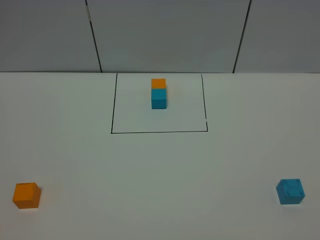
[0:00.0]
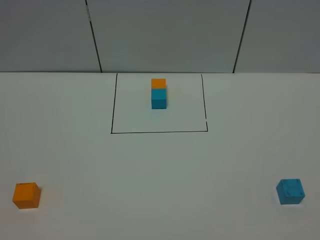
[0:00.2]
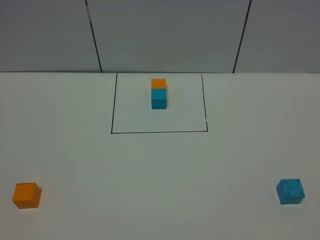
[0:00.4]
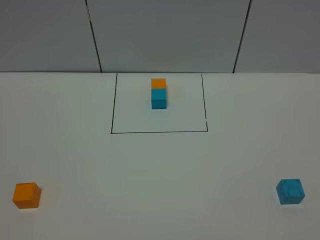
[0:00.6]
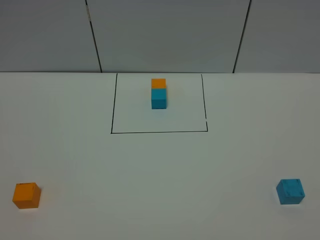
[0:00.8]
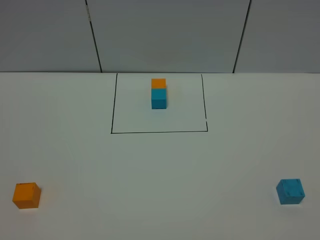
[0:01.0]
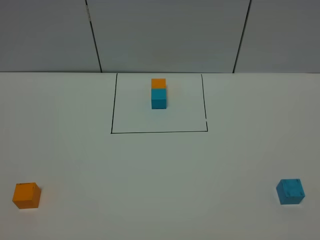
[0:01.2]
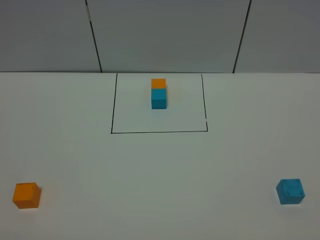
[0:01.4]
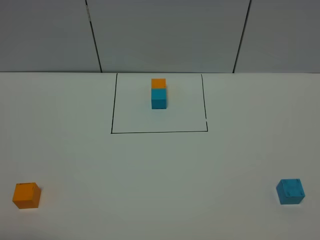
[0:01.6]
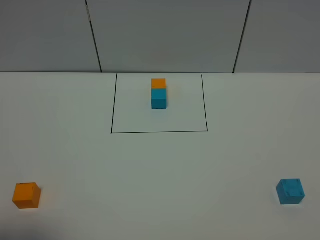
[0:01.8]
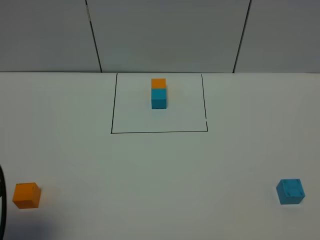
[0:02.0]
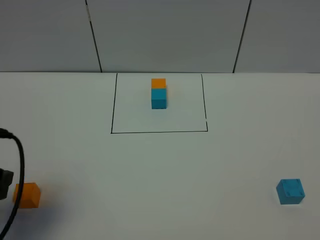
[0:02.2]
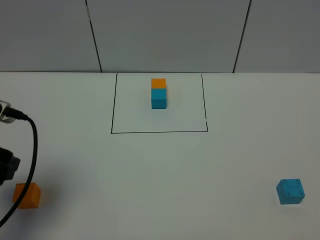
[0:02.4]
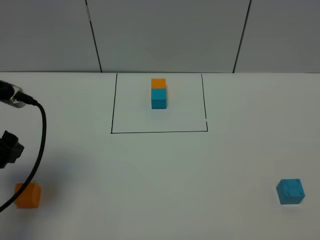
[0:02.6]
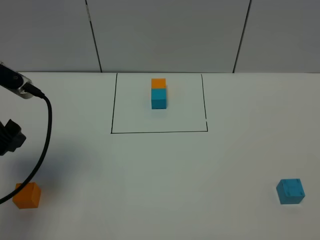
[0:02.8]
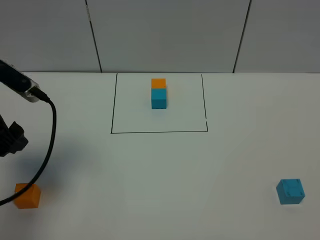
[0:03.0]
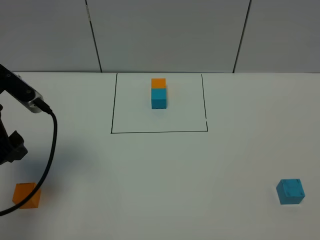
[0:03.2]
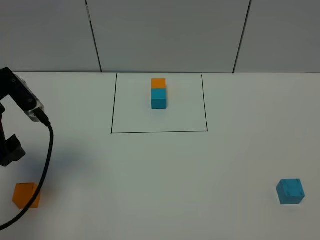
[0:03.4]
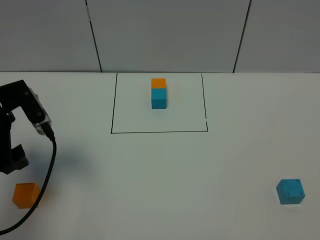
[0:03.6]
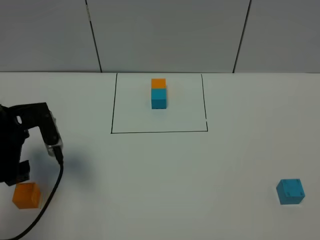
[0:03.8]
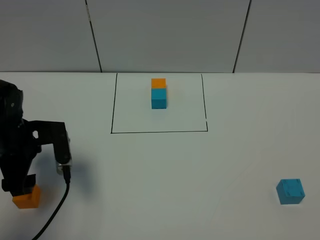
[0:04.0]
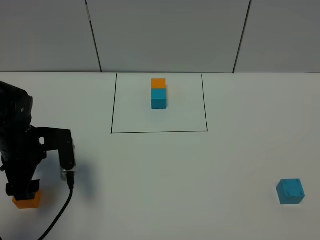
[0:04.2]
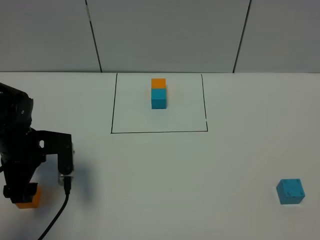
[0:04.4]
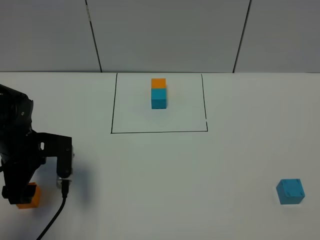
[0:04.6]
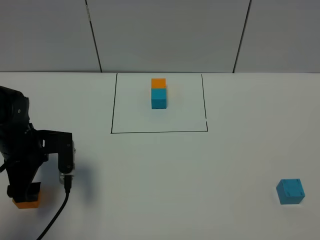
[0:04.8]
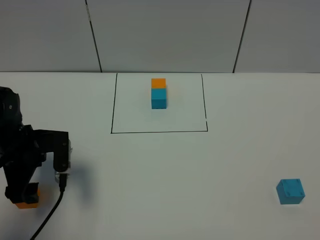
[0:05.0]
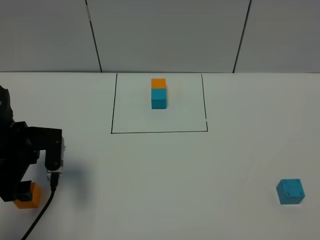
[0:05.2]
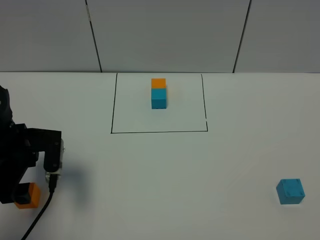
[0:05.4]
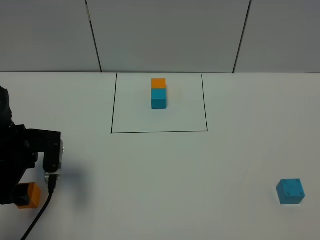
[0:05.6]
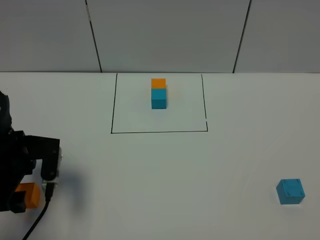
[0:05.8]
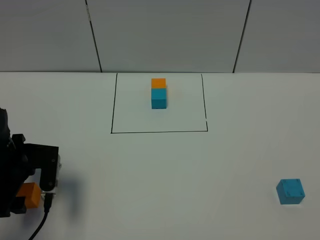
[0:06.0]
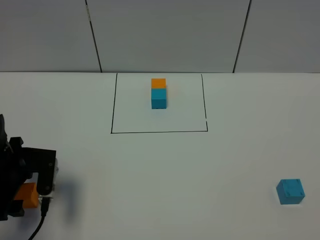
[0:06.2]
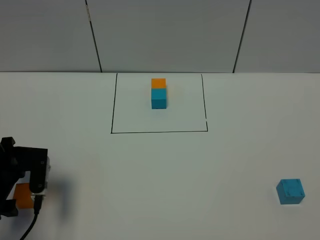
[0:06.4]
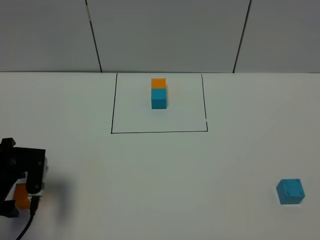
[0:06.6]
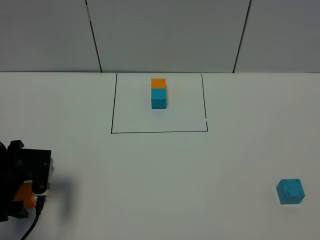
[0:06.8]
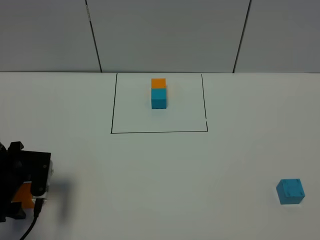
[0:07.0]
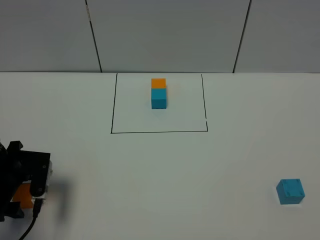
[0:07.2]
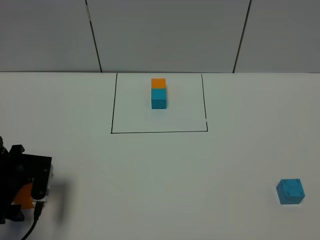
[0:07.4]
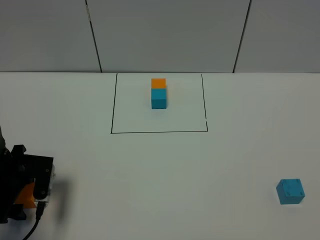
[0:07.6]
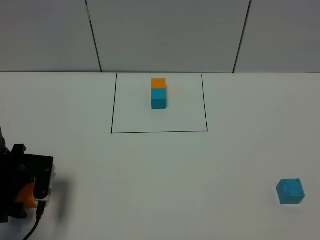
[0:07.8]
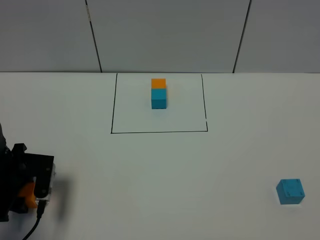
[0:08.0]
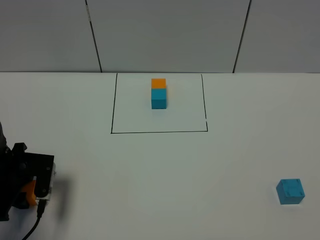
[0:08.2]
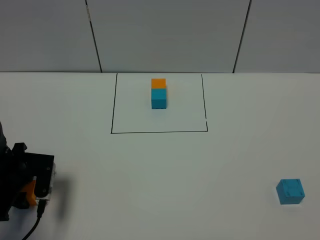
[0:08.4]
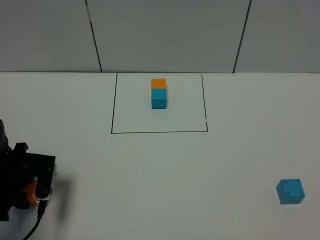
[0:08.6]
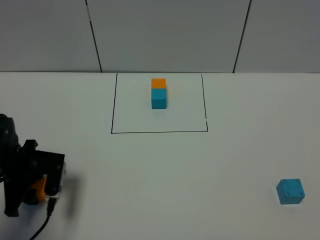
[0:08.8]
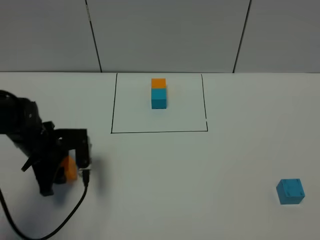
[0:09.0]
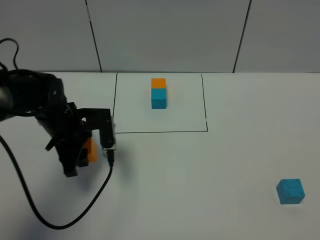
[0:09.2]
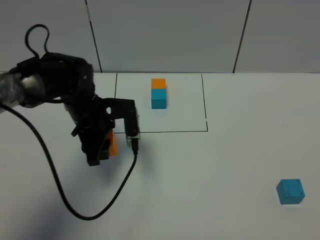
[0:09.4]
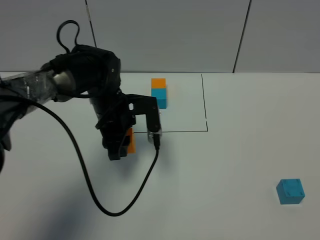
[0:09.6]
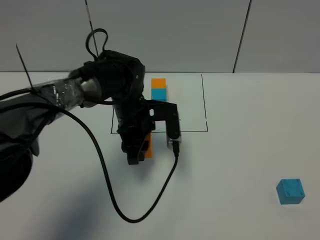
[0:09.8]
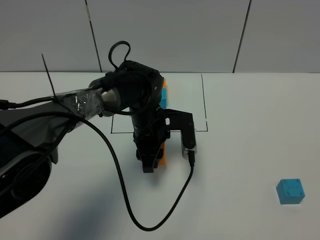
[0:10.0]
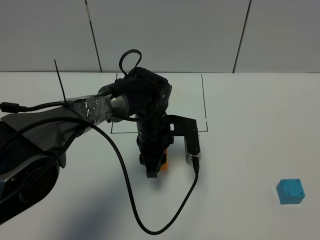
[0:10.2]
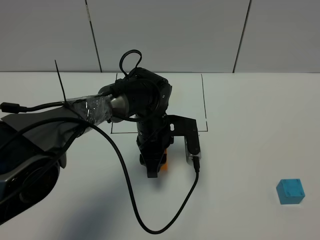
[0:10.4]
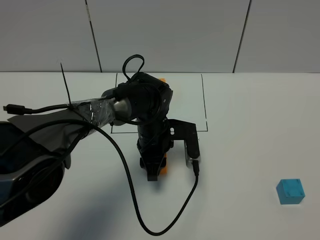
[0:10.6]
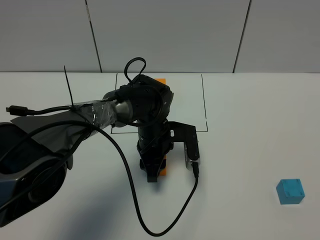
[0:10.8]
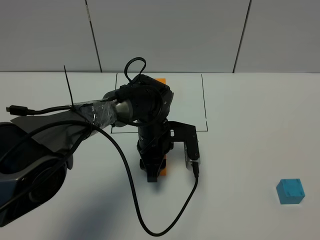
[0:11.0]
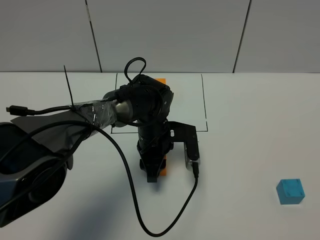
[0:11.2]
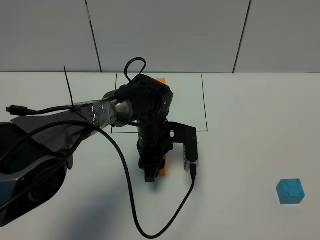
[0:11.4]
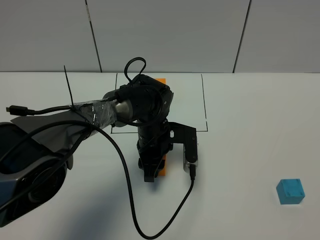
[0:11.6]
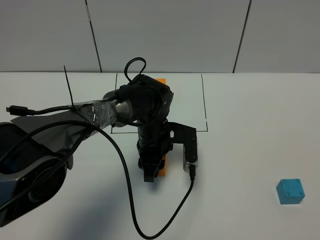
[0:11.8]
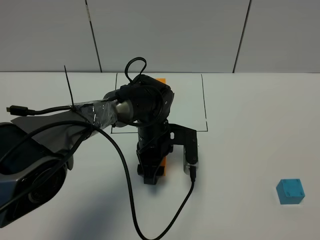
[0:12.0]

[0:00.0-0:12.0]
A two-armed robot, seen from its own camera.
Task of the whole recording: According to the building block template in front, assemble the scattered blocks together.
0:01.6 to 0:03.0: The left gripper is displaced forward by some 25 cm.
0:03.0 to 0:04.4: The left gripper goes about 10 cm downward.
0:04.4 to 0:06.0: The grippers stay close to where they were, moving slightly.
0:06.0 to 0:07.6: The left gripper moves some 5 cm.
0:07.6 to 0:09.0: The left gripper moves to the right, approximately 5 cm, and closes up.
0:09.0 to 0:10.4: The left gripper moves to the right, approximately 20 cm.
0:10.4 to 0:12.0: The left gripper opens.

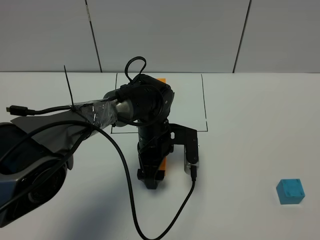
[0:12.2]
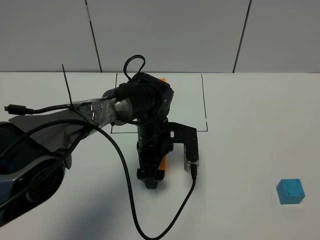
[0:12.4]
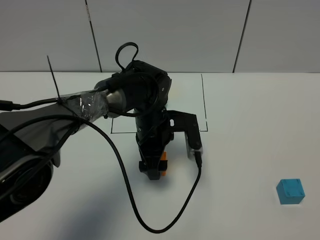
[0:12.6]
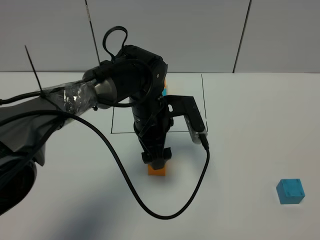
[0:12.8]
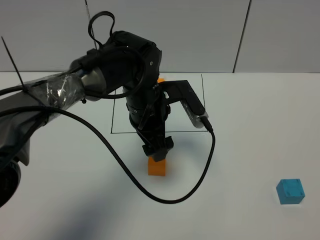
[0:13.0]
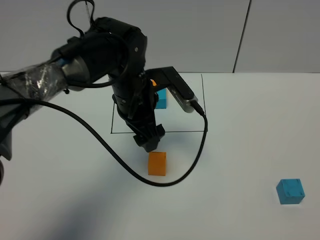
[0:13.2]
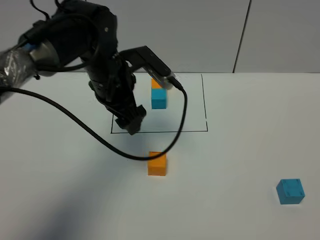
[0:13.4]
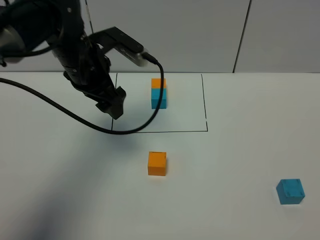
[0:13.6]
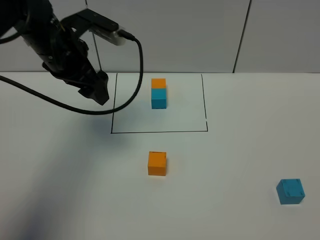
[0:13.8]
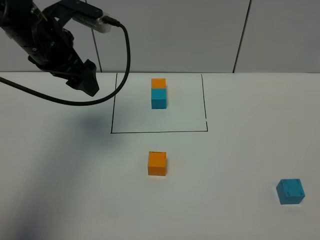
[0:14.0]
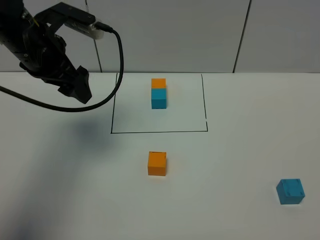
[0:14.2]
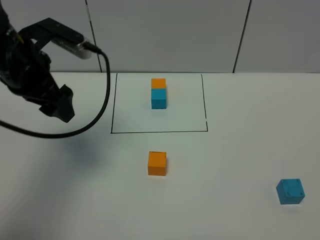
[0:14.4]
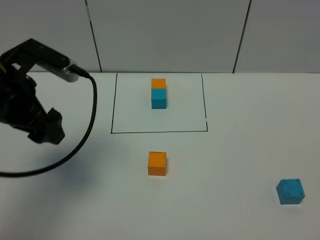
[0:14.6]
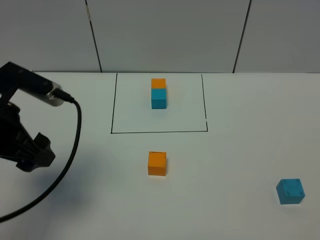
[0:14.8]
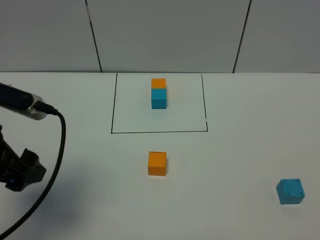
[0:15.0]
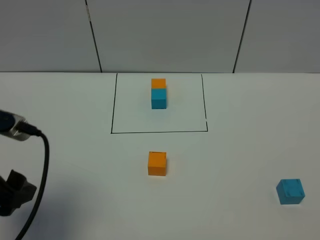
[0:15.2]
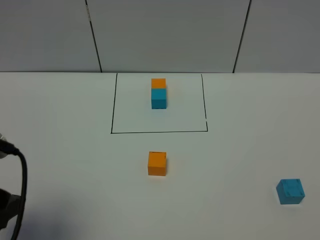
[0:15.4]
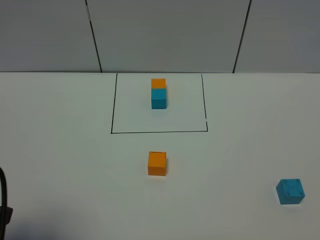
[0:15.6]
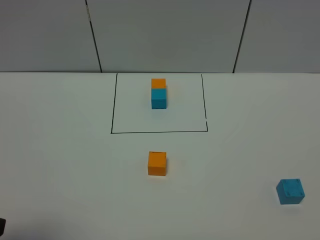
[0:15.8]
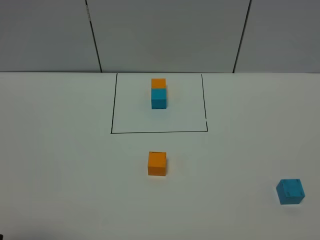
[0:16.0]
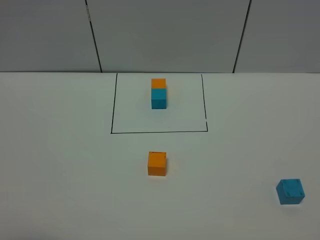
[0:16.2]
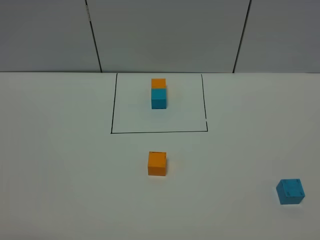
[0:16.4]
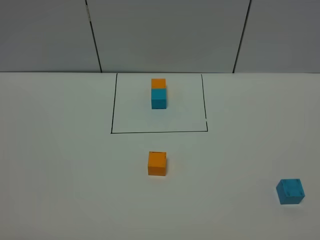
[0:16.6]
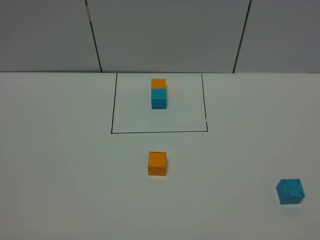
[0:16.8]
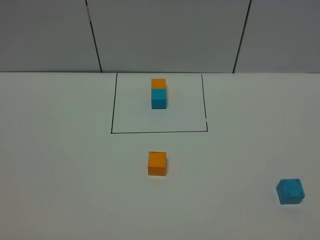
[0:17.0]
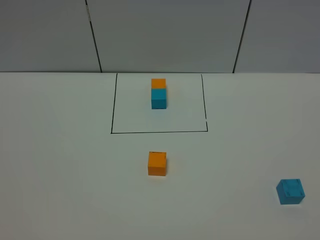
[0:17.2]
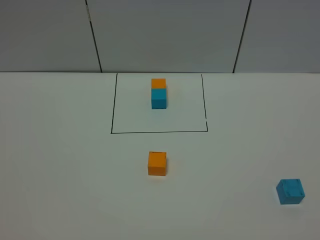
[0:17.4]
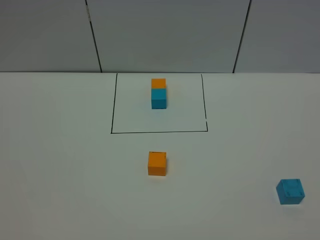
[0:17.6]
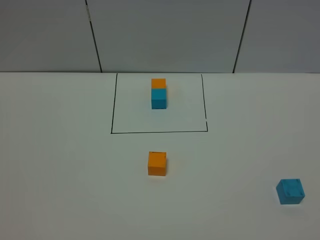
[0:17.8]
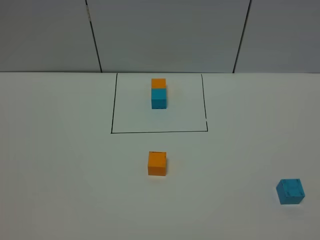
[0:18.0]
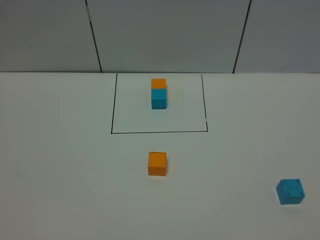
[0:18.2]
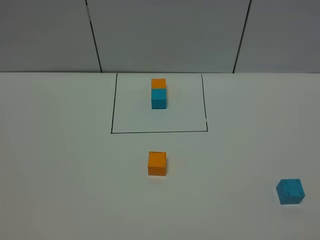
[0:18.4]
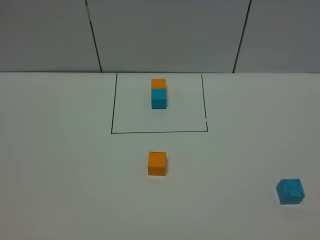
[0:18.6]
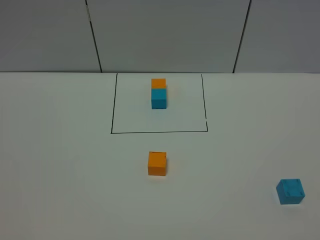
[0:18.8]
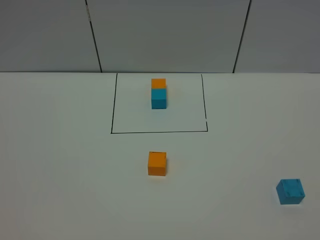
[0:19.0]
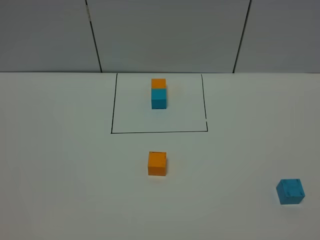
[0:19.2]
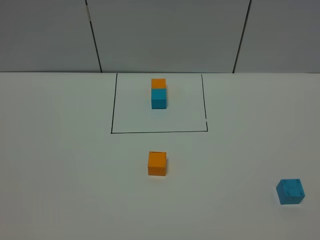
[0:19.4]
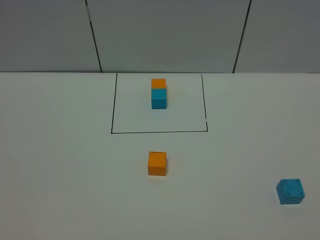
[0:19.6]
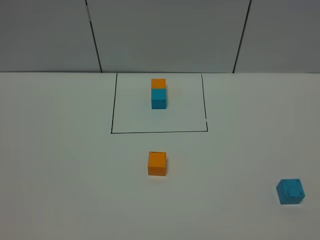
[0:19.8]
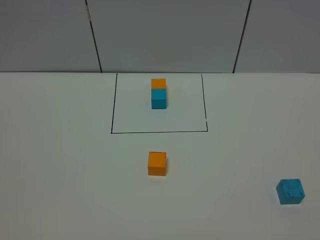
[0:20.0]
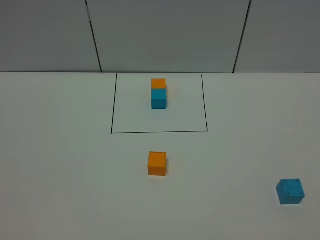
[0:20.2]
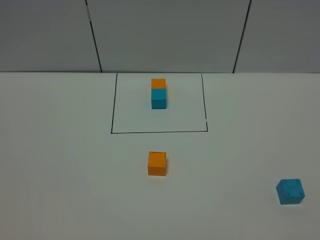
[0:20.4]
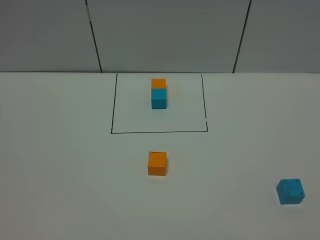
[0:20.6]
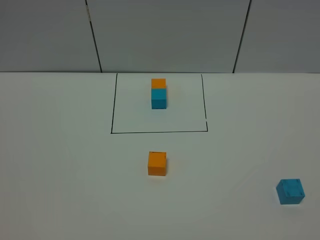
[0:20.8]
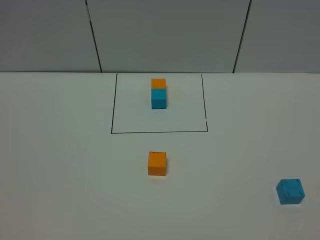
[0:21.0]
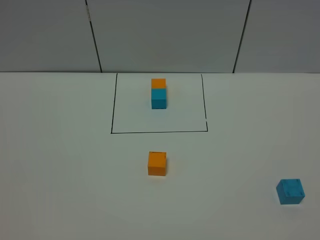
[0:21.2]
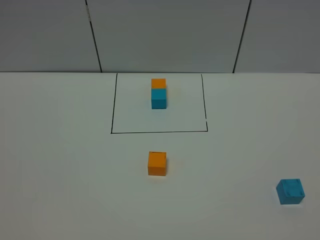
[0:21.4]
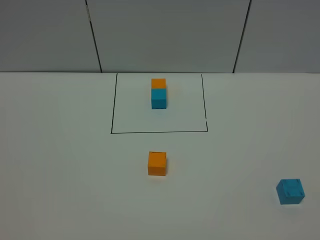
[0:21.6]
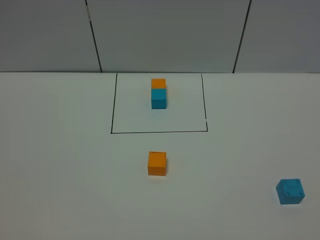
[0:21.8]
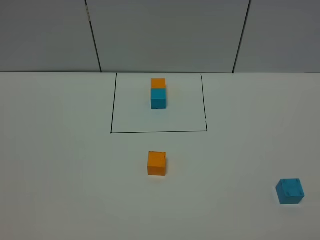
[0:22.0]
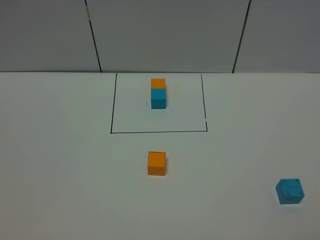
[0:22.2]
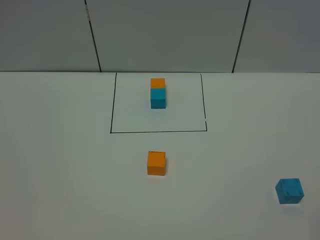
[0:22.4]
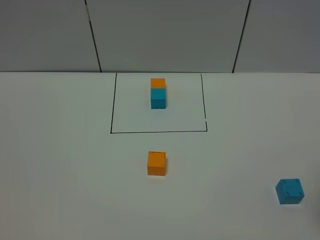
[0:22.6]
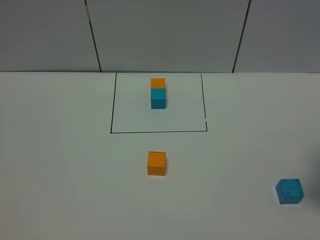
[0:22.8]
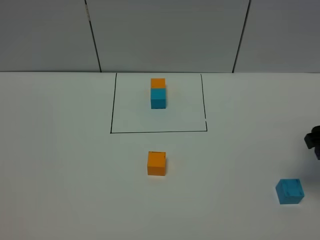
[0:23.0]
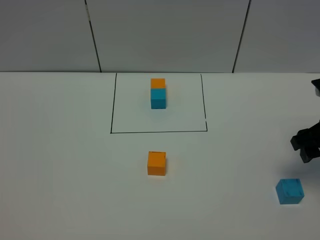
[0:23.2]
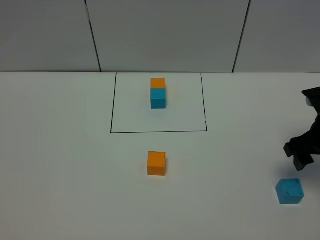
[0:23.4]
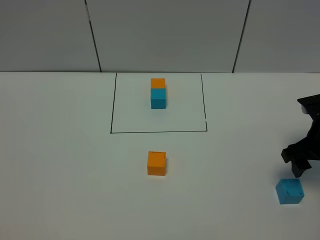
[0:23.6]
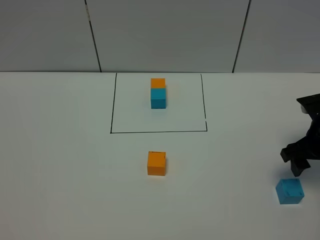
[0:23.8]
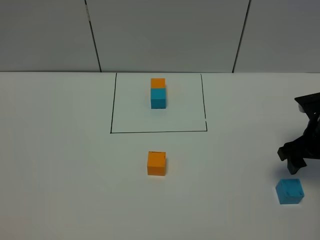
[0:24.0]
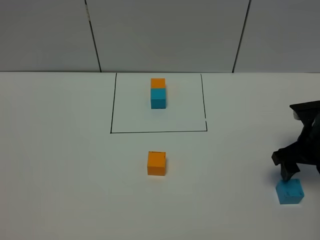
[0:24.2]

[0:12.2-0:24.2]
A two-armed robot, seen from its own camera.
Task of the whole recording: According to the building block template in front, assemble the scattered blocks together.
0:12.2 to 0:13.8: The left gripper goes approximately 25 cm upward and to the left.
0:13.8 to 0:15.2: The left gripper goes about 25 cm backward.
0:15.2 to 0:16.6: The left gripper shifts roughly 15 cm backward.
0:18.2 to 0:21.2: The two grippers keep their place.
0:22.6 to 0:24.2: The right gripper moves downward and forward, approximately 20 cm.
